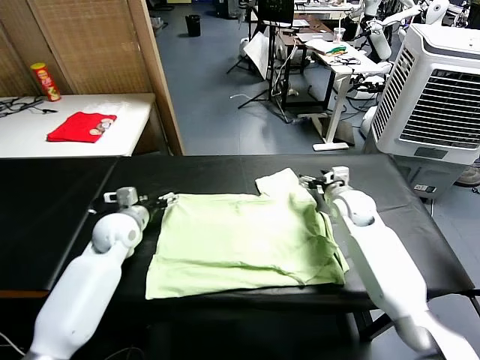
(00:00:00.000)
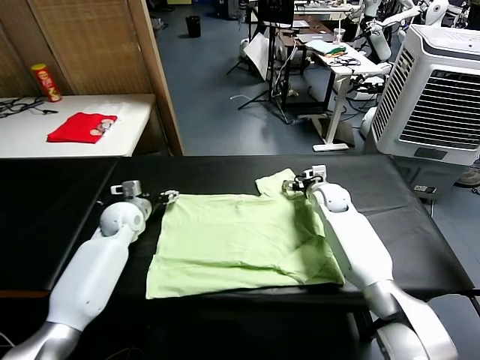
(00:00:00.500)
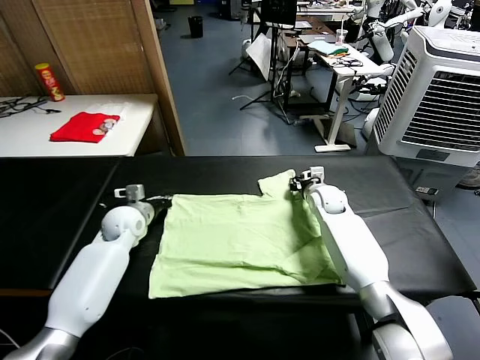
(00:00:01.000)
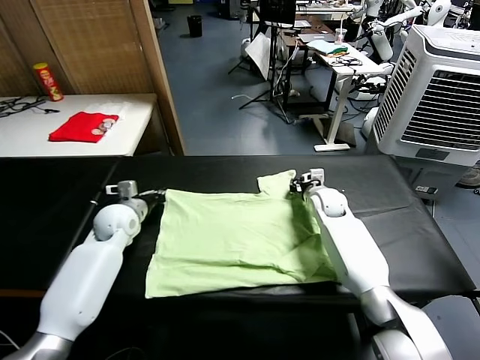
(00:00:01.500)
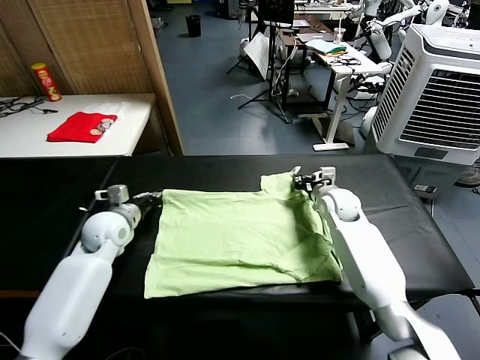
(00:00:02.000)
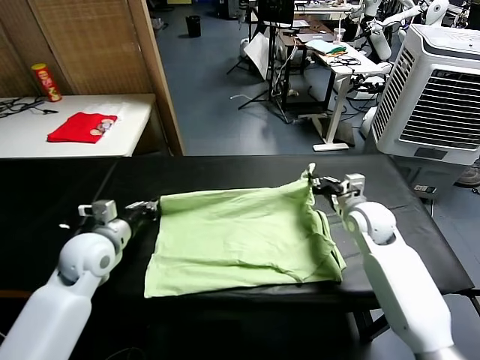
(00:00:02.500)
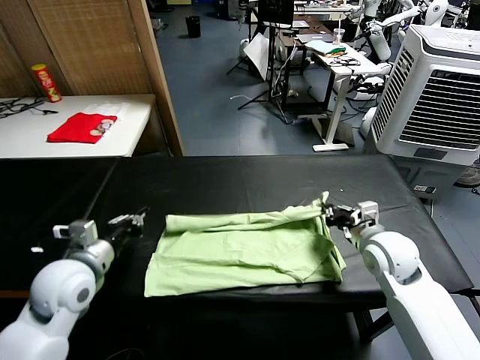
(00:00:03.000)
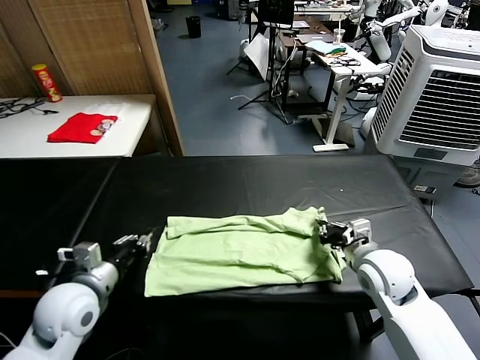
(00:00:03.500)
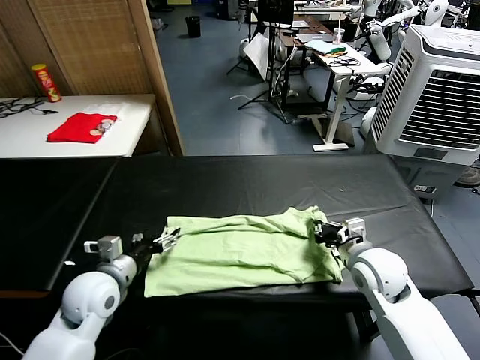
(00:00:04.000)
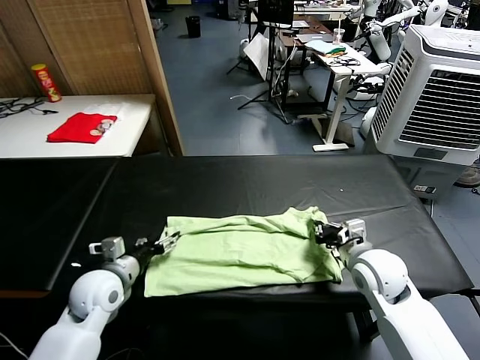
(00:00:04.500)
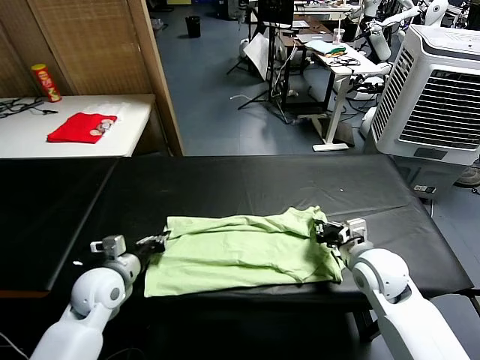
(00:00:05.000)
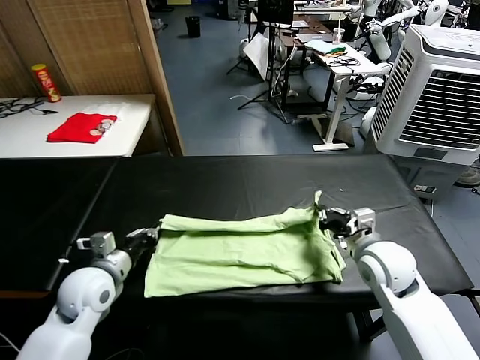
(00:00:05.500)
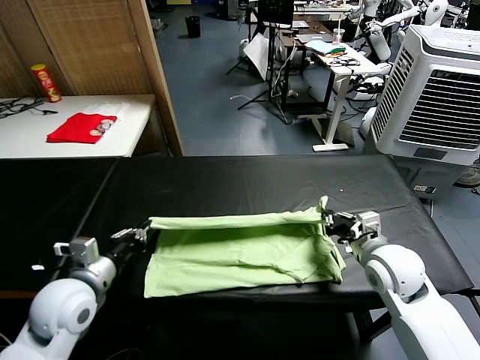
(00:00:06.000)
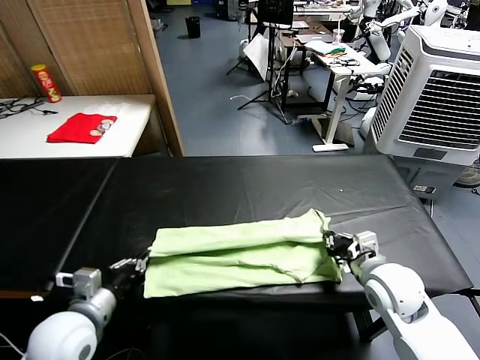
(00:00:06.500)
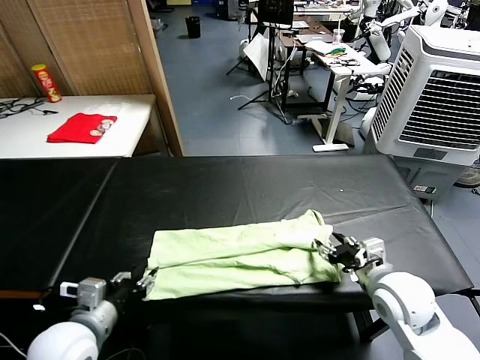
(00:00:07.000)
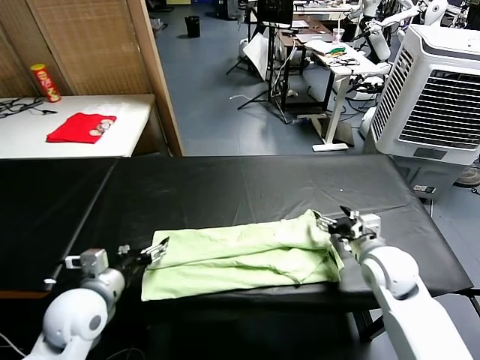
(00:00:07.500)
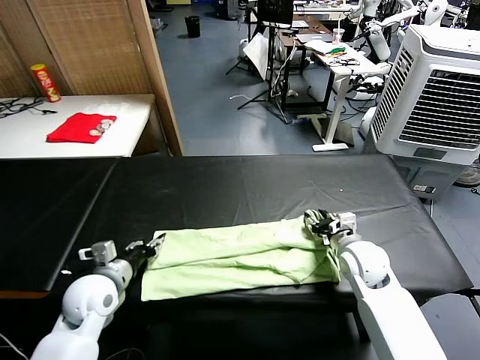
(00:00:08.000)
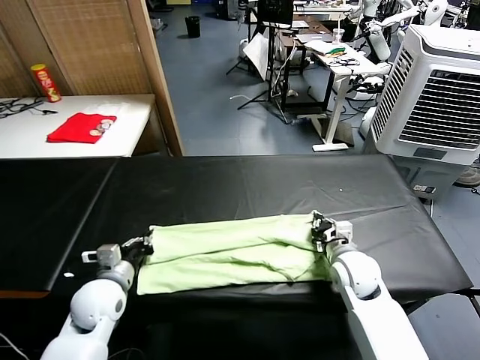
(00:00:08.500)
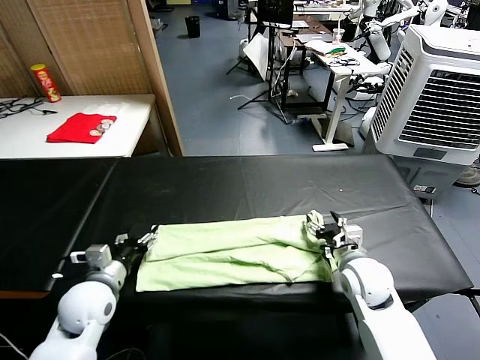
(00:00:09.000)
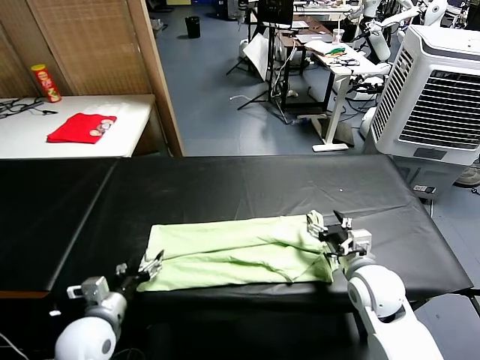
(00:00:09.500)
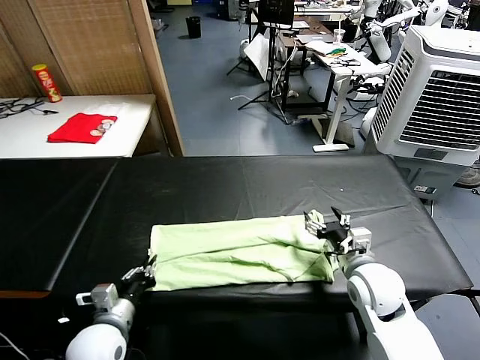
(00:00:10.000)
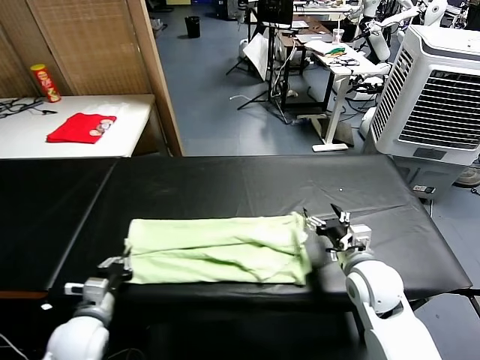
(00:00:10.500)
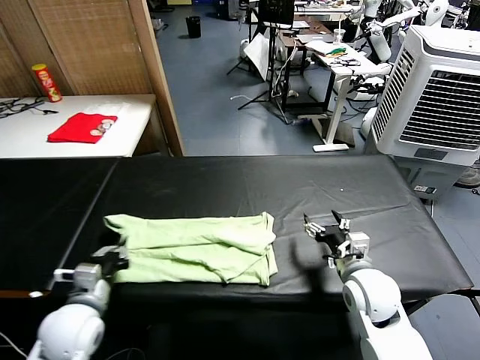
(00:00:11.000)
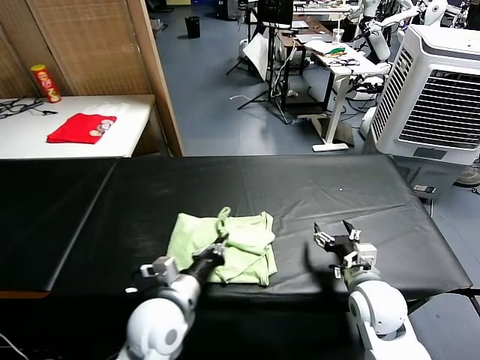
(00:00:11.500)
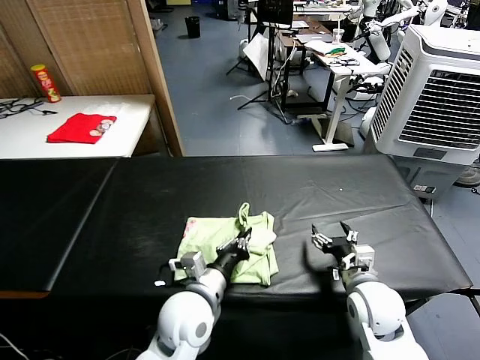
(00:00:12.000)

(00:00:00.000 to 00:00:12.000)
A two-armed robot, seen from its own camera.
Task of the whole recording: fold and organize the clothes.
Step, 00:00:00.000 - 00:00:01.000: use both grippers simultaneously to clamp the upper edge of the clothing fabric.
Step, 00:00:01.500 - 00:00:07.000: use both grippers to drag the upper edge of the fabric backward and fold it over the lower edge.
Step, 00:00:07.500 - 00:00:10.000: use the left gripper to clamp the left edge of the fabric.
00:00:00.000 - 00:00:02.000: The left gripper closes up. Meanwhile the right gripper closes up.
00:00:02.000 - 00:00:04.000: The two grippers go approximately 15 cm backward. The left gripper opens up.
00:00:04.000 - 00:00:06.000: The left gripper changes place by approximately 5 cm, and closes its fingers.
00:00:06.000 - 00:00:08.000: The right gripper shifts roughly 10 cm downward and forward, and opens up, while the left gripper goes about 5 cm downward, and opens.
00:00:08.000 - 00:00:10.000: Both grippers move backward, some 5 cm. The left gripper closes, while the right gripper opens up.
00:00:10.000 - 00:00:12.000: The left gripper travels to the right by some 20 cm.

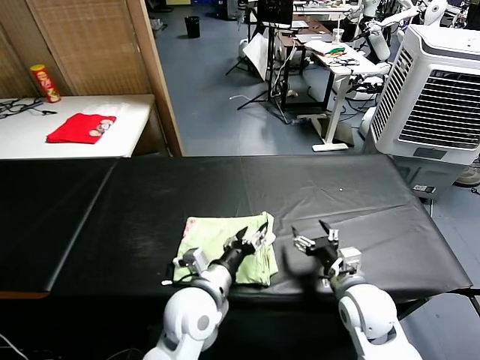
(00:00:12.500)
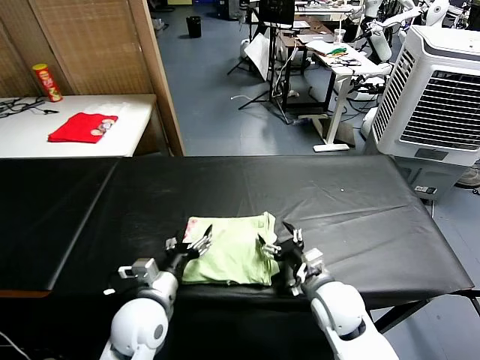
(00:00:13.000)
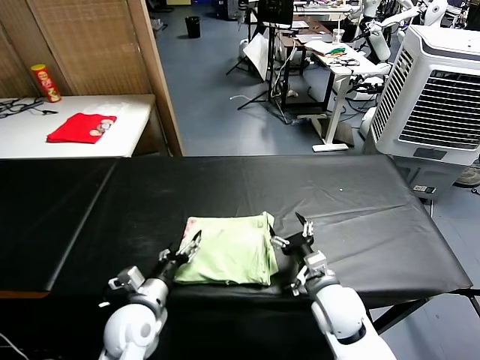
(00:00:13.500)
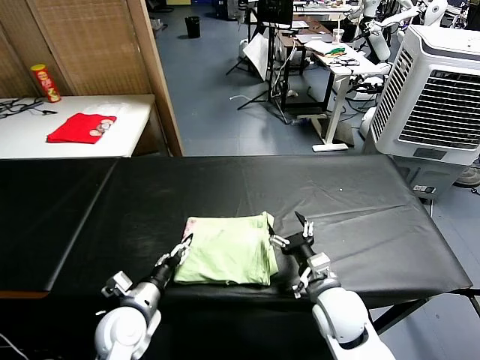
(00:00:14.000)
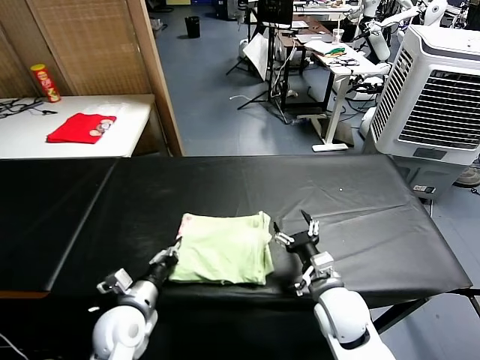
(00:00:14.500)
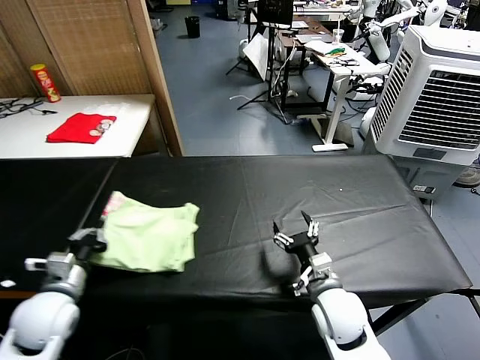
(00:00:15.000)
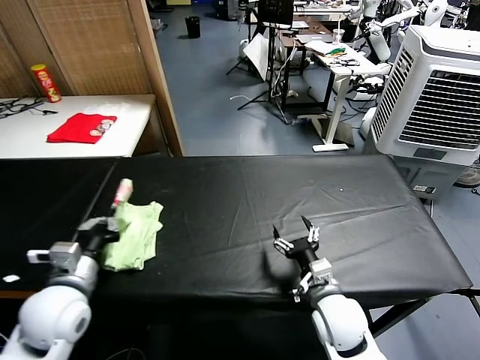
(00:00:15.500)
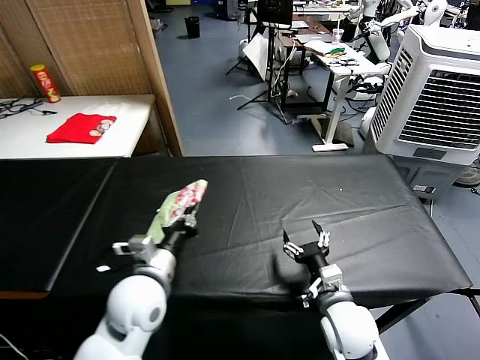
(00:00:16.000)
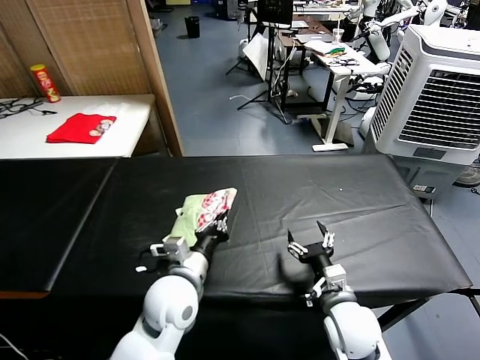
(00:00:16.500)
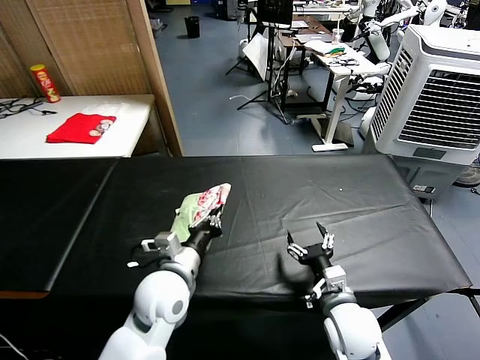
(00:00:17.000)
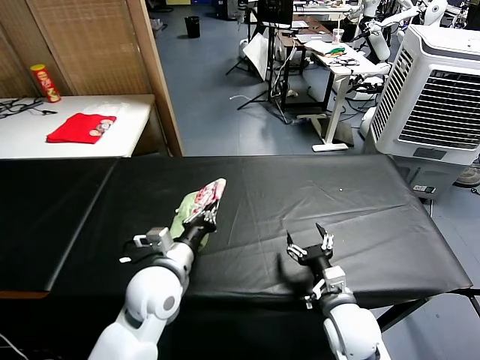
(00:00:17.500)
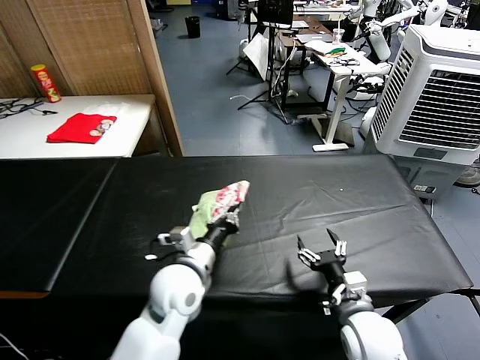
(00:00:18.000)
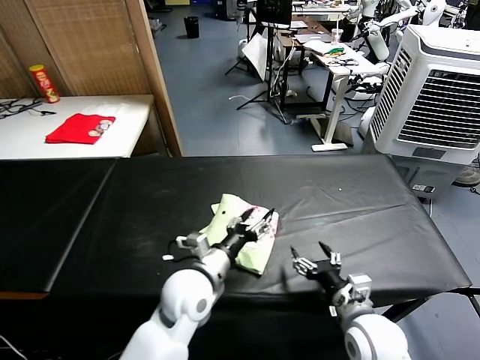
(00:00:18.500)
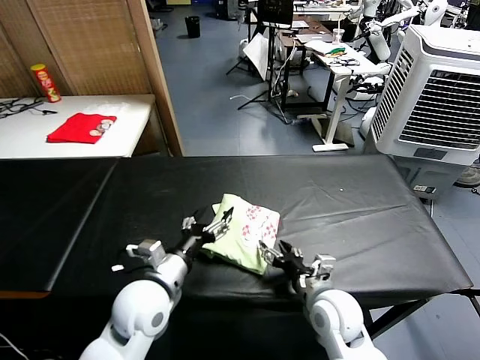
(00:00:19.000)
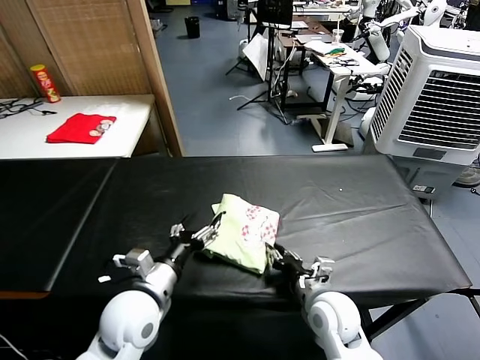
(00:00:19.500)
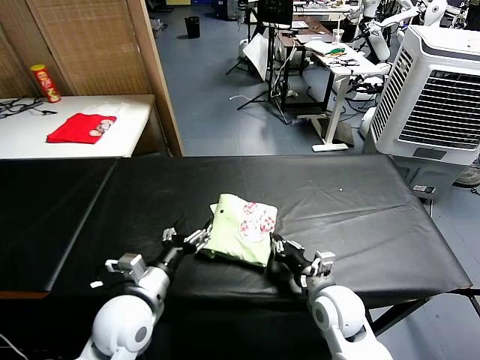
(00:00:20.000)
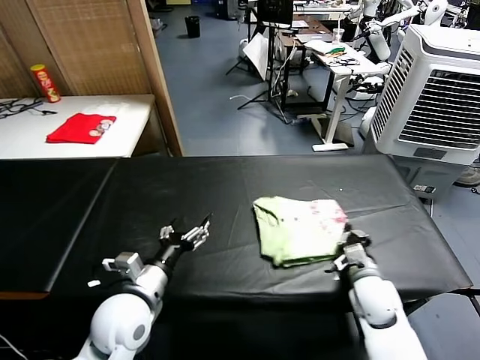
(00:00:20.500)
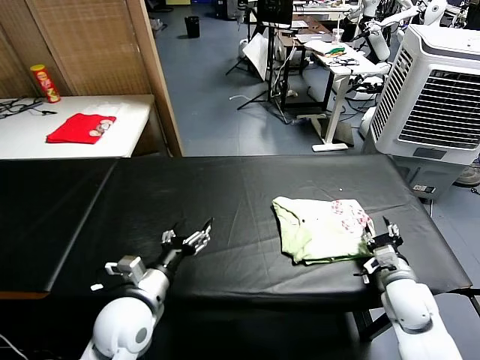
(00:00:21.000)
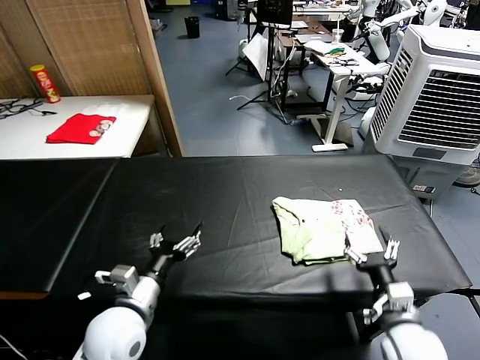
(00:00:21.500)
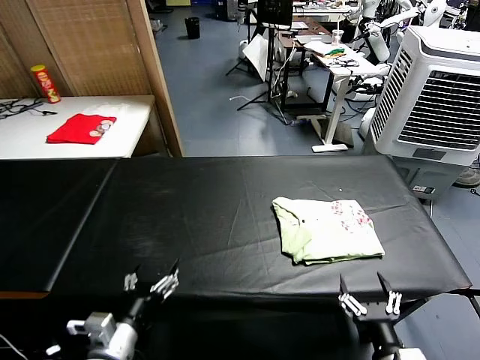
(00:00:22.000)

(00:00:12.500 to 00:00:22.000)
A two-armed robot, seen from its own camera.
Task of the whole recording: fold and organize the clothes.
Step, 00:00:13.000 - 00:00:18.000: Flip the folded clothes over with left gripper.
Step, 00:00:18.500 - 00:00:21.000: Drag the clothes to the center of the table.
00:00:12.500 - 00:00:14.500: The left gripper is displaced to the left by approximately 15 cm, and closes up.
00:00:14.500 - 00:00:16.500: The left gripper shifts approximately 15 cm to the right and upward.
00:00:16.500 - 00:00:18.000: The grippers move only a little.
00:00:18.000 - 00:00:20.000: The right gripper travels forward by approximately 5 cm, and closes up. Meanwhile the left gripper moves to the left and backward, roughly 10 cm, and opens.
00:00:20.000 - 00:00:22.000: The left gripper travels backward by some 10 cm; the right gripper moves backward, some 20 cm, and opens.
